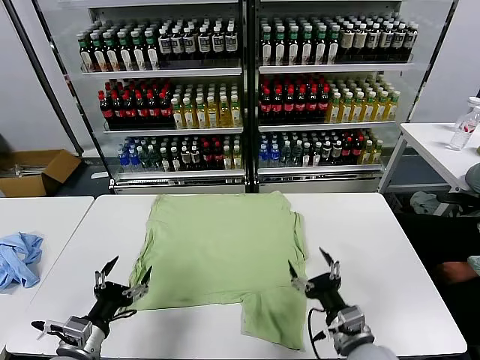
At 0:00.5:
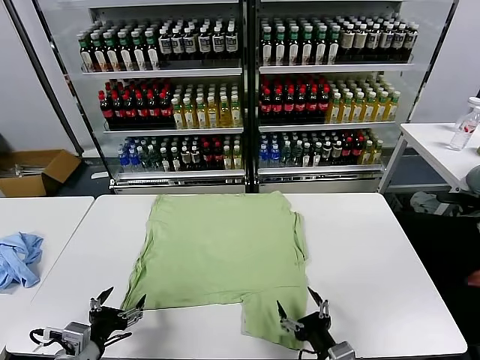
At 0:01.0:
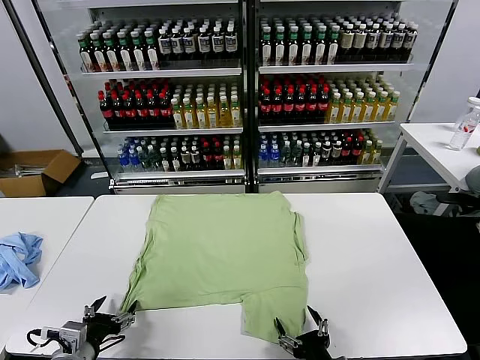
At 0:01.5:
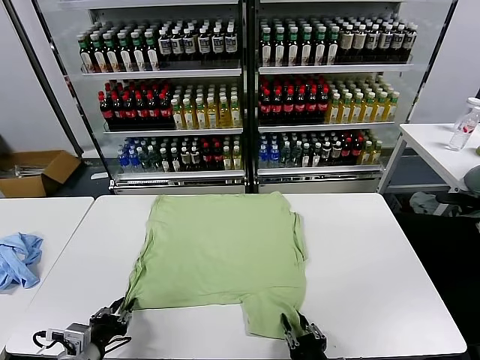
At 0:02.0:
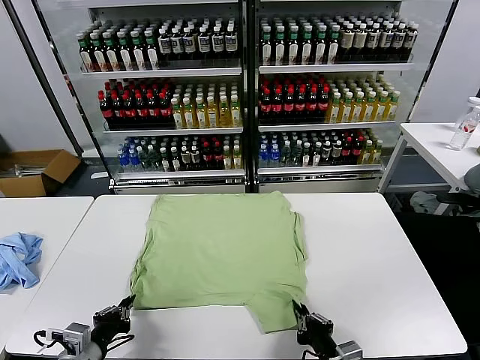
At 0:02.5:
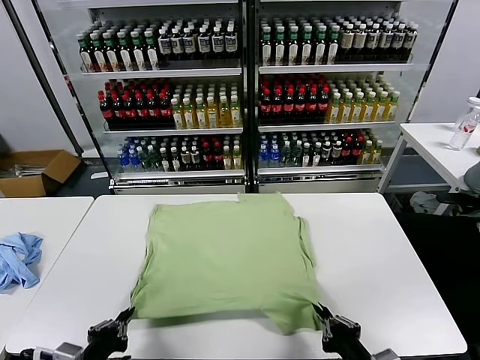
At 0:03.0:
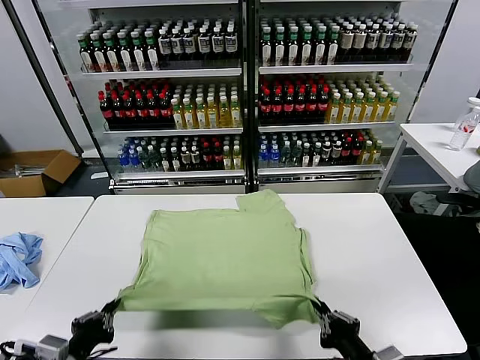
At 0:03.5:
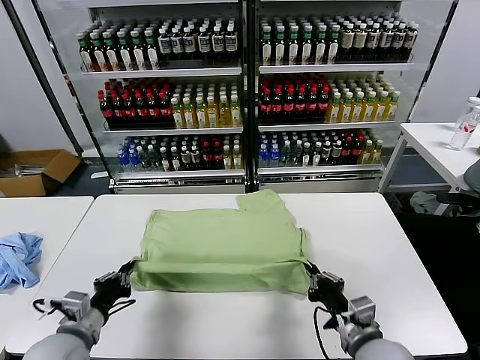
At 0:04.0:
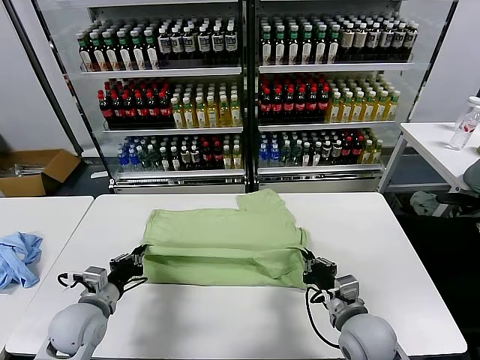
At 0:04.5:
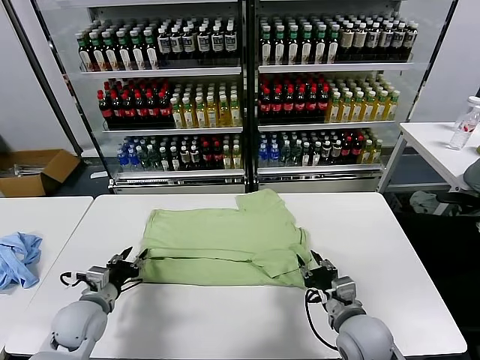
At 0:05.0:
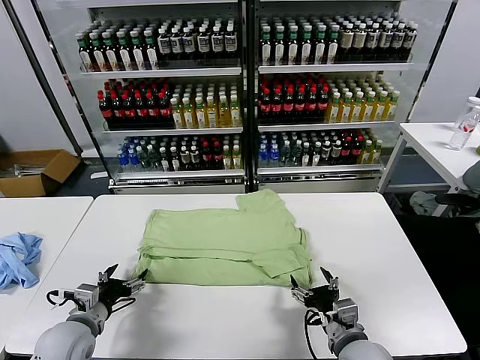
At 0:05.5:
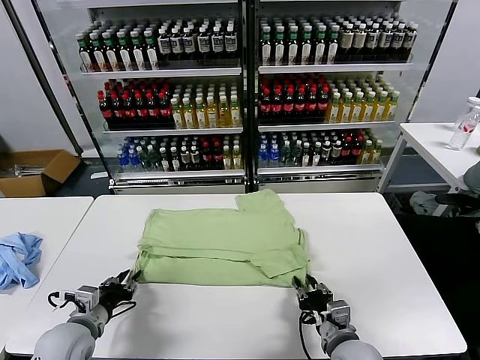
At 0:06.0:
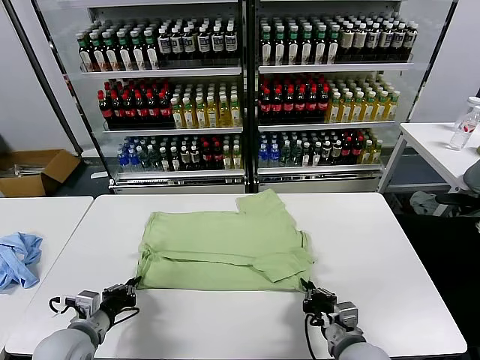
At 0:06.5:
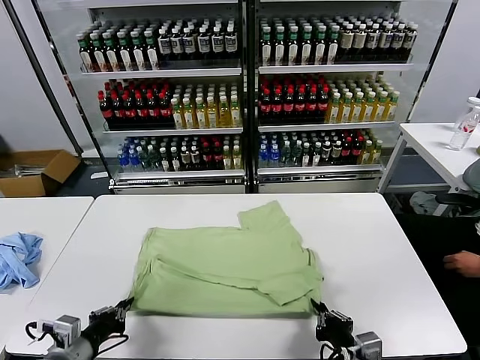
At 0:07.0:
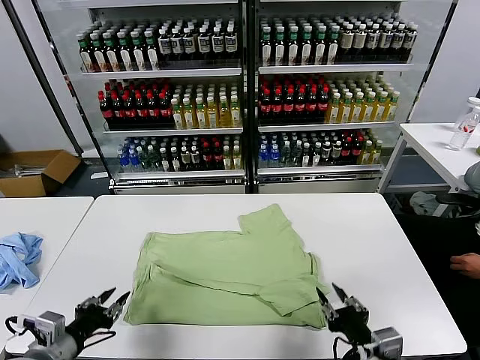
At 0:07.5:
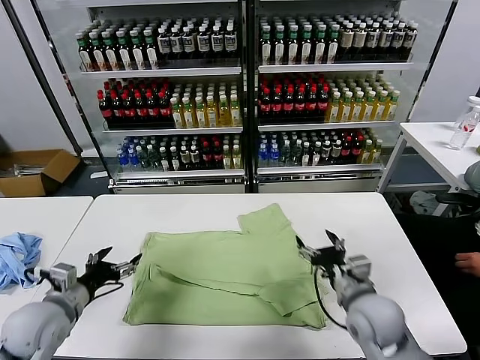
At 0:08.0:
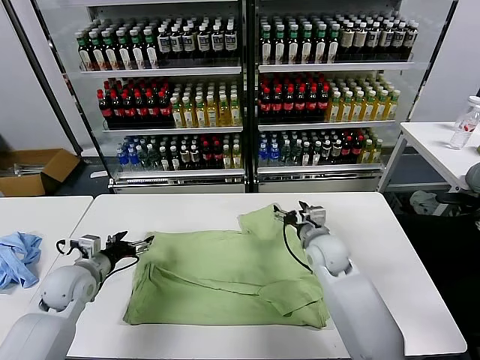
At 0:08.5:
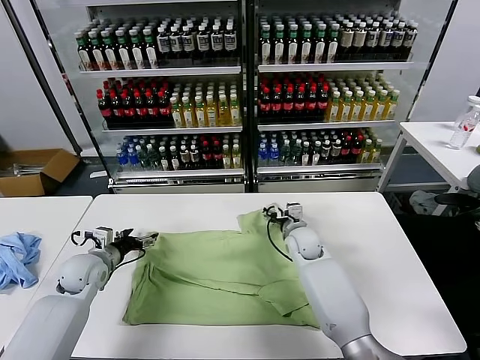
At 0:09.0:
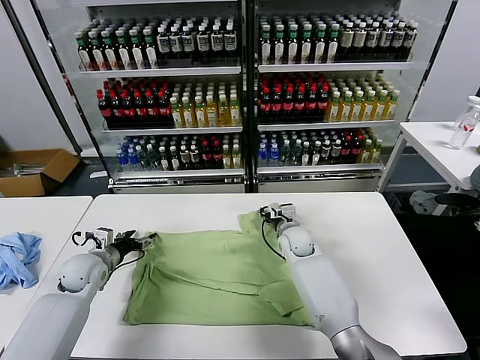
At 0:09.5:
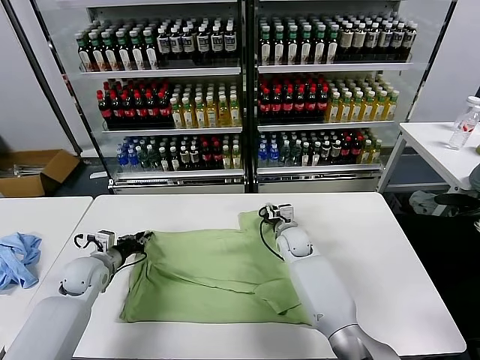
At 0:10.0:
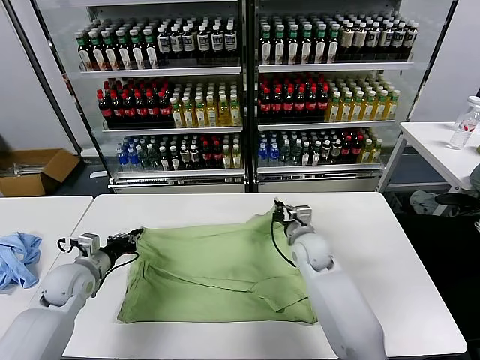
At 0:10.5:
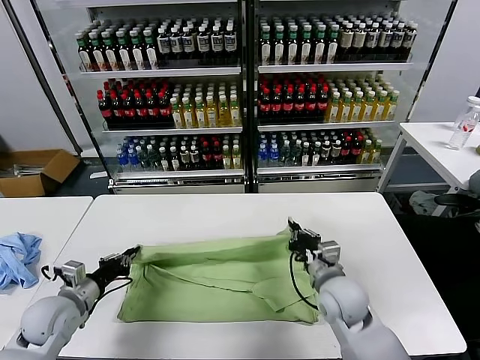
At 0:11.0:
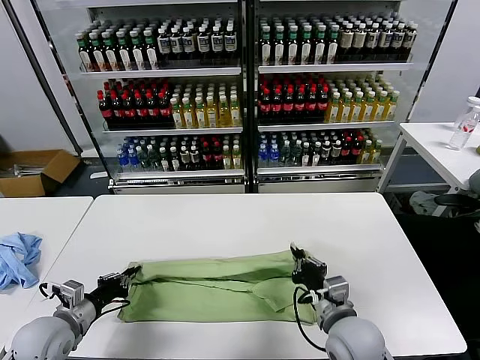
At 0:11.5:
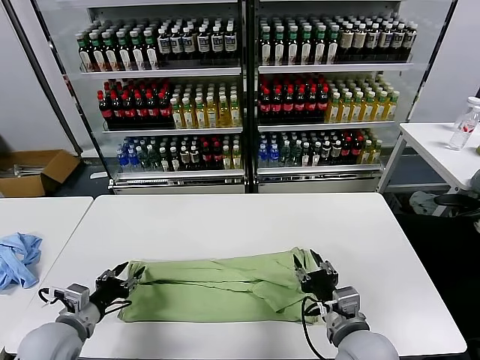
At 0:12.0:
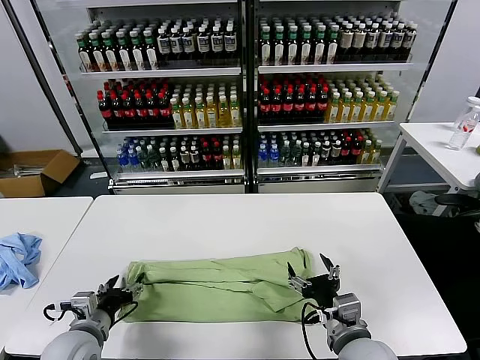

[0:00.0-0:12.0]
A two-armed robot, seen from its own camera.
Task of the whole recording: fold and organize the clothes.
Step, 0:00.0 to 0:01.5: use both grippers simultaneously to clamp the lower edge of the clothing fabric.
Step, 0:02.0 to 0:04.0: use both grippers to drag the lower edge of the fabric forward and fold it over the upper edge.
Step, 0:04.5 to 0:06.5: Drag the clothes downward with both gripper.
Step, 0:07.0 to 0:09.5: use both grippers simultaneously to clamp the upper edge of the clothing fabric.
Step, 0:10.0 to 0:11.0: use both grippers to drag the upper edge of the fabric backward and fold it over the lower edge.
0:02.0 to 0:04.0: The two grippers go about 10 cm forward.
0:04.0 to 0:06.0: Both grippers move backward, approximately 5 cm. The right gripper opens and closes again. Meanwhile the left gripper opens and closes again.
0:06.0 to 0:08.0: The right gripper shifts approximately 25 cm forward, and opens up; the left gripper travels forward by approximately 15 cm, and opens.
0:08.0 to 0:10.0: The right gripper goes forward and returns, approximately 5 cm each way, and closes, while the left gripper closes its fingers.
0:10.0 to 0:12.0: The left gripper shifts roughly 15 cm backward and to the right, and opens up, while the right gripper goes some 25 cm backward, and opens up.

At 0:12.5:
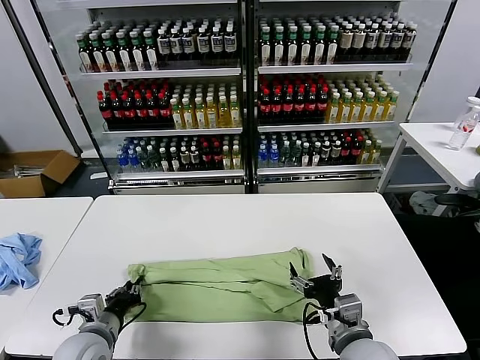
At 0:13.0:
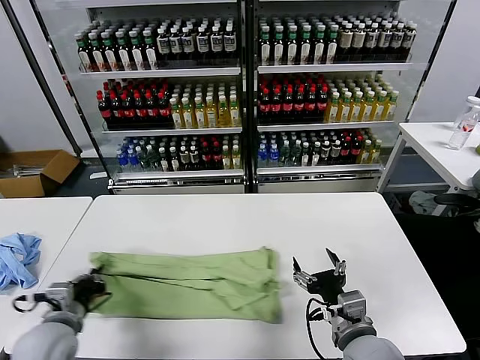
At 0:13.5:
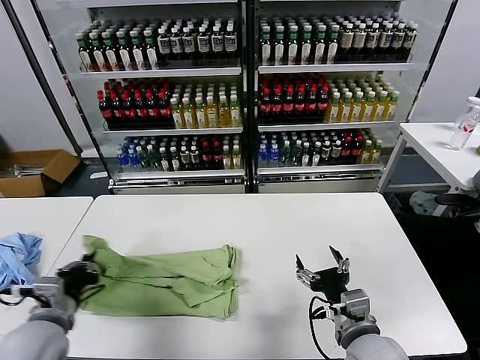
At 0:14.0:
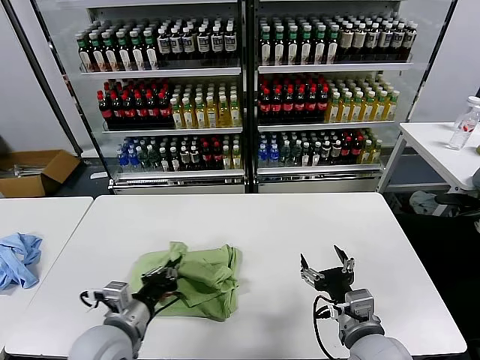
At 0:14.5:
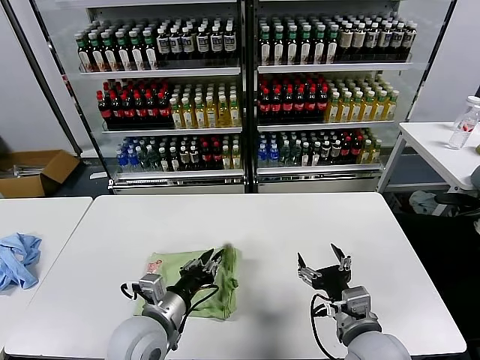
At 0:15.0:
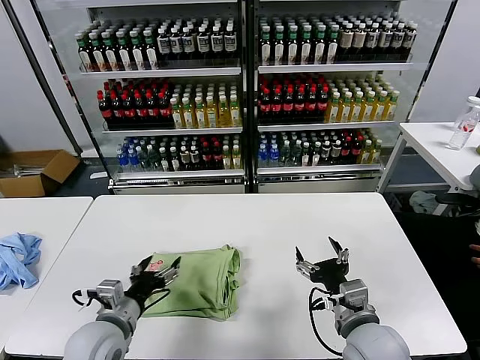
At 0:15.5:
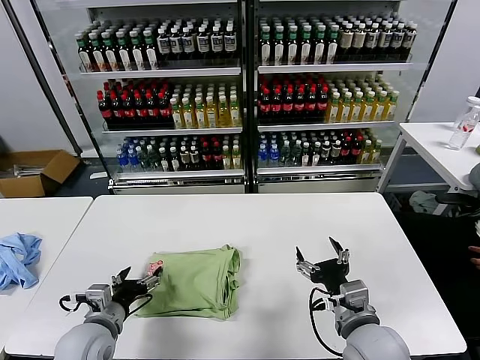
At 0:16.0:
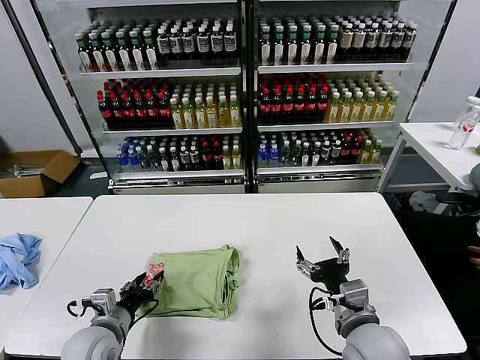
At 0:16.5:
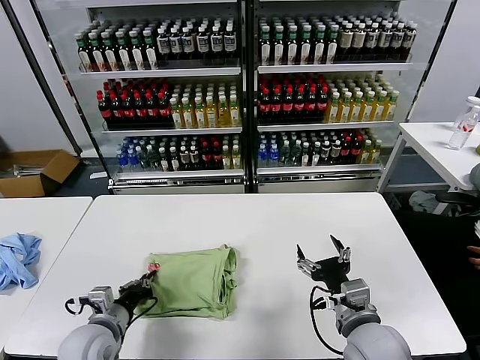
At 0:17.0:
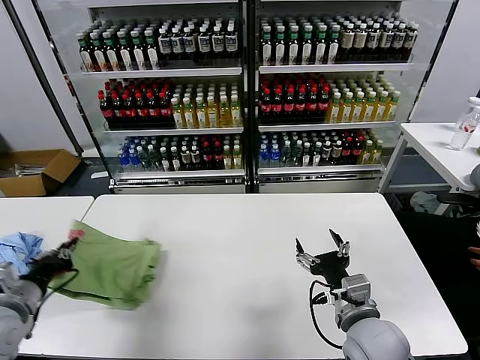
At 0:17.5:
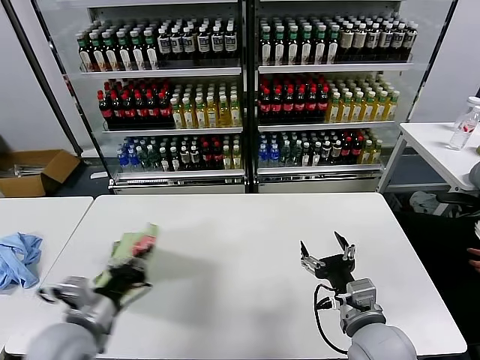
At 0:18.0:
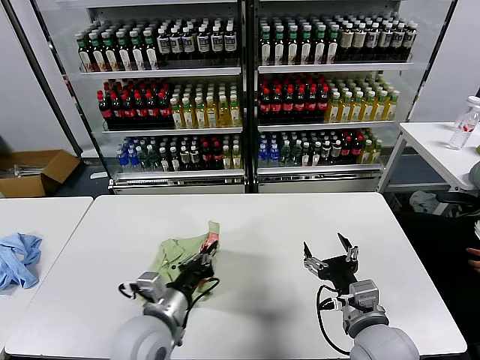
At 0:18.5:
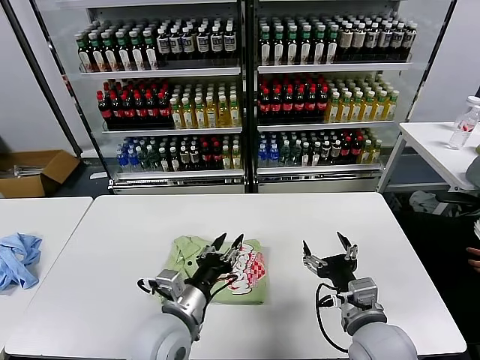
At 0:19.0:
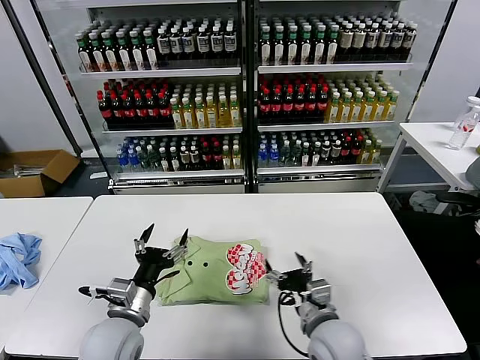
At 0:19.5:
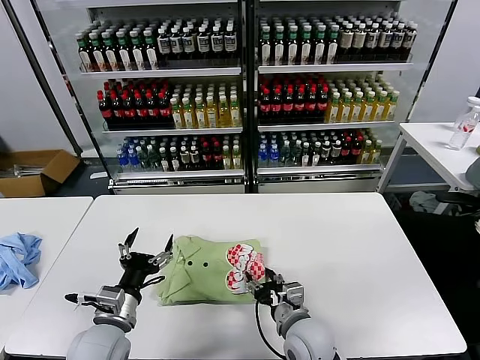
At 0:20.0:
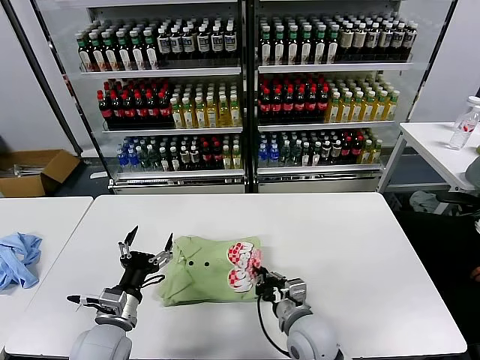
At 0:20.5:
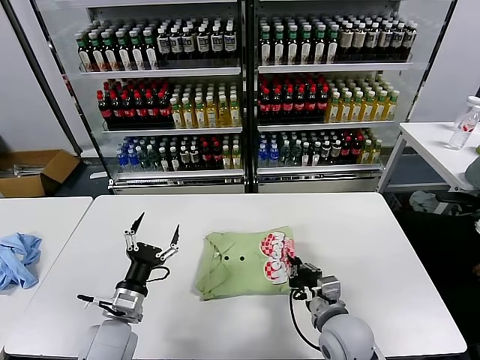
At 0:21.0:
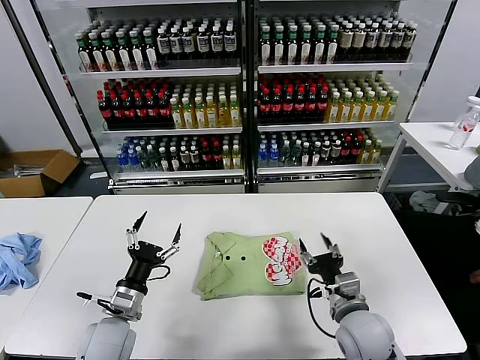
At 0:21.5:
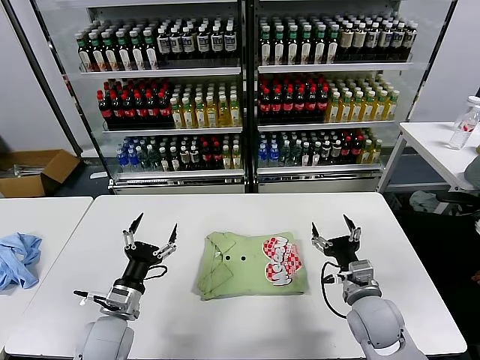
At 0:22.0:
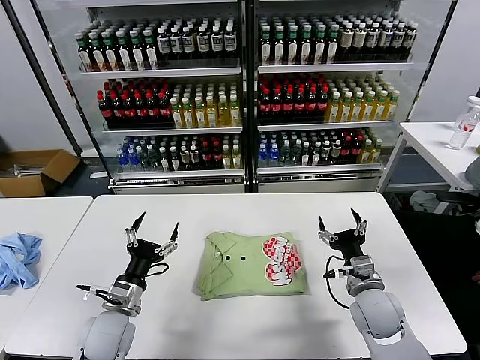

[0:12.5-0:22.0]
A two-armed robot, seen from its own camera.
Task of the whole recording: fold and organize the clothes.
Step, 0:13.0 to 0:14.5: use the left gripper to drag the left edge of the fabric to the left and folds it over the right edge.
Step, 0:15.0 to 0:18.0: Flip the folded clothes over with left gripper.
Step, 0:18.5 to 0:20.5: Drag the clothes to the center of the table.
0:12.5 to 0:14.5: The left gripper goes about 15 cm to the right and upward.
0:14.5 to 0:16.5: The left gripper moves to the left and downward, approximately 15 cm, and opens, then closes again.
0:16.5 to 0:18.0: The left gripper travels to the right and upward by about 15 cm.
0:18.0 to 0:20.0: The right gripper heads to the left, downward and forward, covering about 15 cm, and closes its fingers. Meanwhile the left gripper is displaced to the left by about 10 cm, and opens up.
0:20.0 to 0:22.0: The right gripper travels to the right by approximately 15 cm, and opens its fingers.

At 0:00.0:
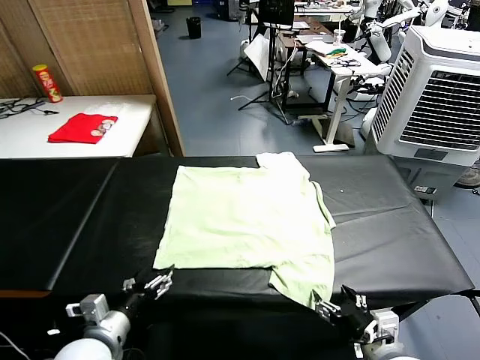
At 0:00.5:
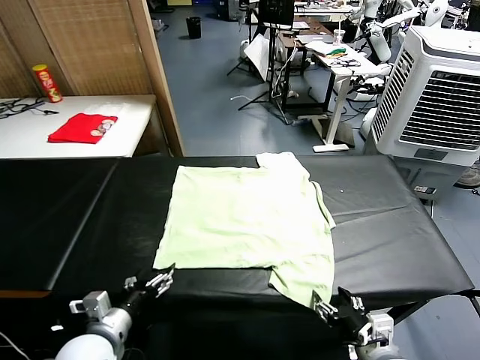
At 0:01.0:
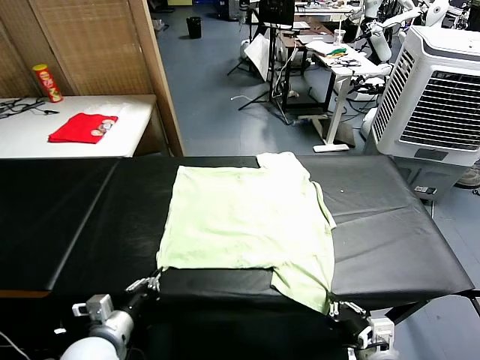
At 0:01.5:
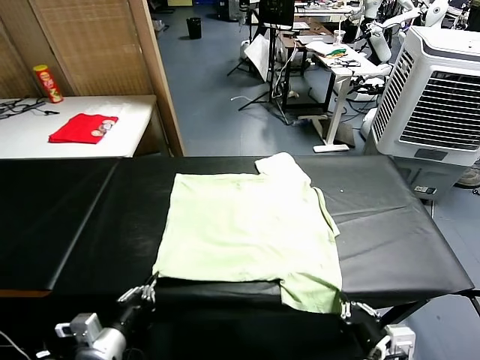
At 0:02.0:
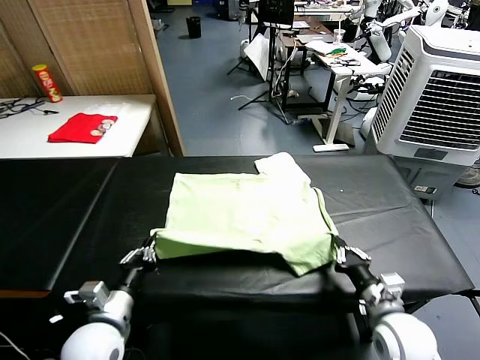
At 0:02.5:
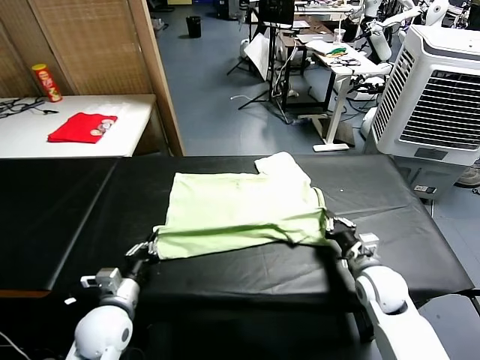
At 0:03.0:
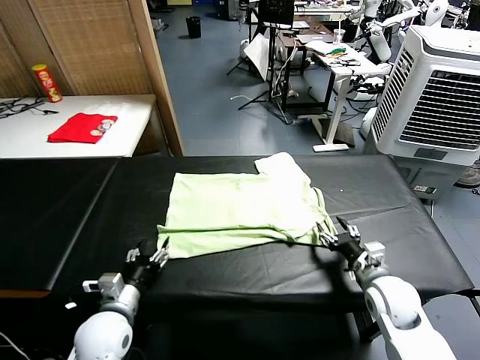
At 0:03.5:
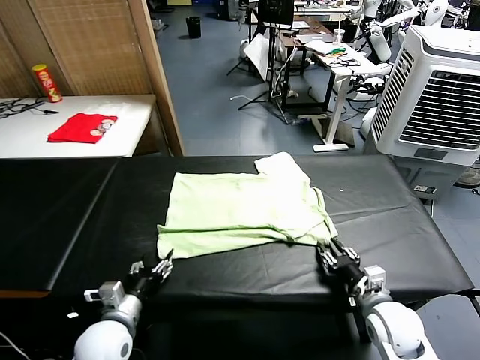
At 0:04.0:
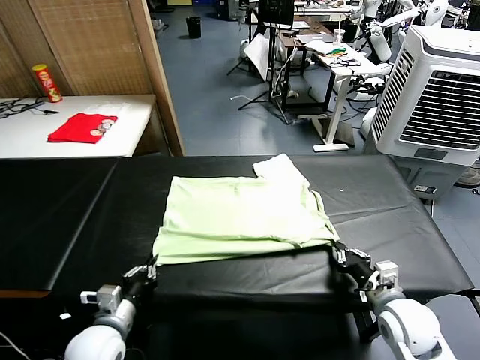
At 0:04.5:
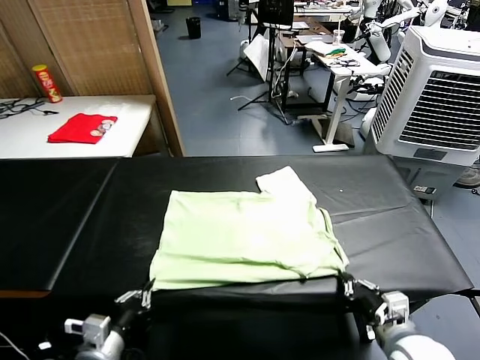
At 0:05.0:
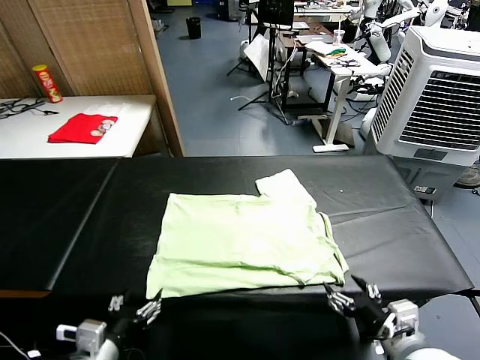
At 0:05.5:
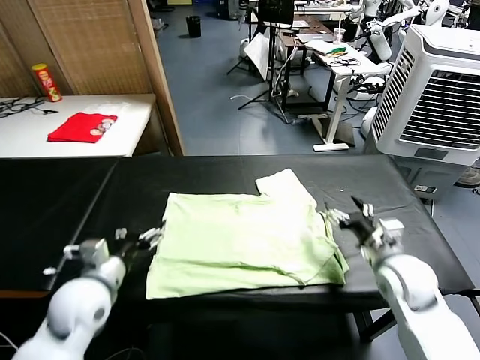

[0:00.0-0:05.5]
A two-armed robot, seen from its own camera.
Task of the whole recording: fold and organize the clothes.
Step, 0:00.0 to 0:01.0: use both grippers simultaneously to clamp the lower edge of the clothing fabric.
Step, 0:01.5 to 0:02.5: use both grippers to drag the lower edge of the fabric forward and fold it over the upper edge.
Step, 0:03.5 to 0:05.0: Drag the clothes downward with both gripper.
0:02.0 to 0:03.5: The left gripper heads downward, covering about 5 cm, and opens up. Meanwhile the right gripper reaches some 5 cm forward, then returns, and opens and closes again.
0:03.5 to 0:05.5: The left gripper shifts about 10 cm upward, goes backward and returns, roughly 10 cm each way, and opens, while the right gripper heads forward and upward, covering roughly 15 cm, and opens.
